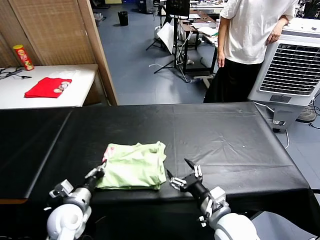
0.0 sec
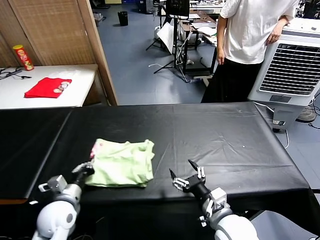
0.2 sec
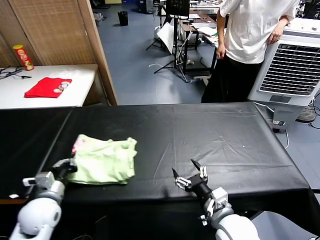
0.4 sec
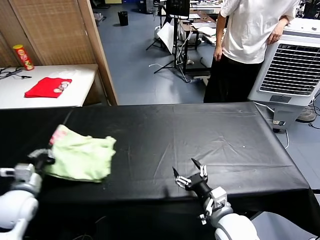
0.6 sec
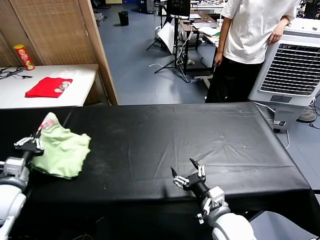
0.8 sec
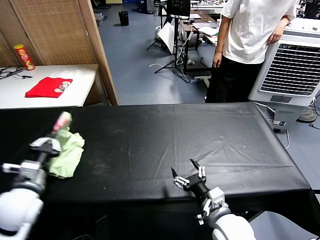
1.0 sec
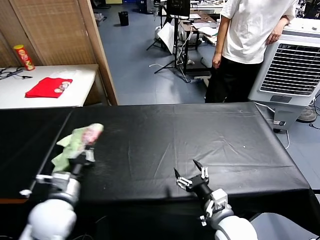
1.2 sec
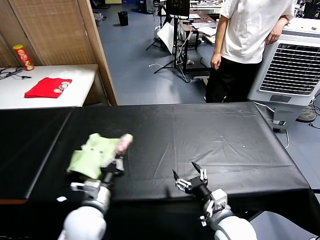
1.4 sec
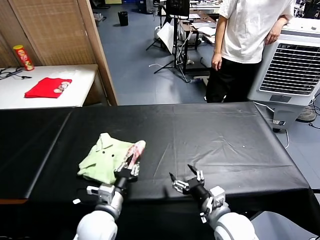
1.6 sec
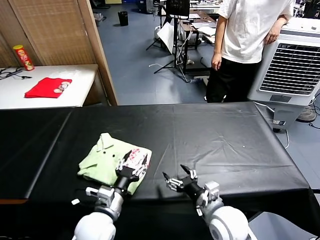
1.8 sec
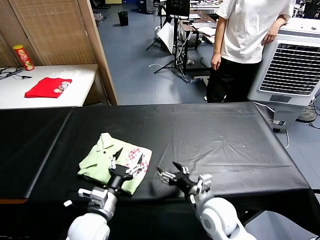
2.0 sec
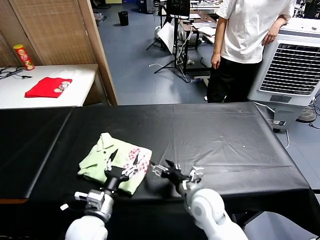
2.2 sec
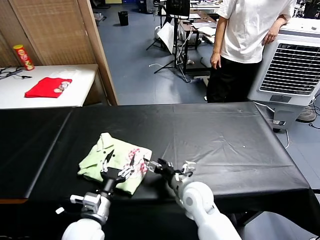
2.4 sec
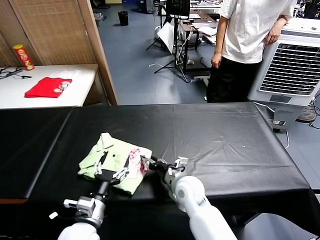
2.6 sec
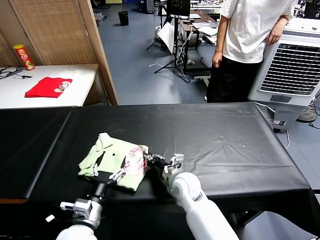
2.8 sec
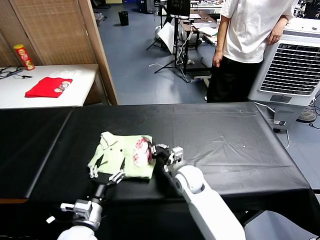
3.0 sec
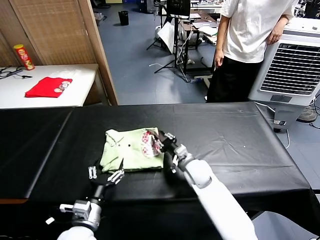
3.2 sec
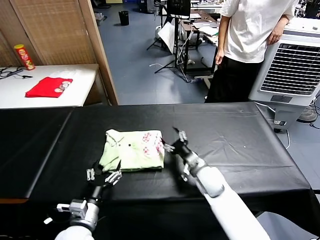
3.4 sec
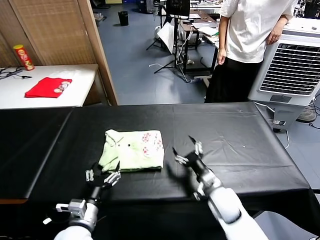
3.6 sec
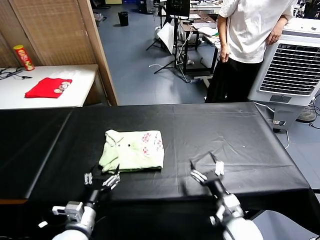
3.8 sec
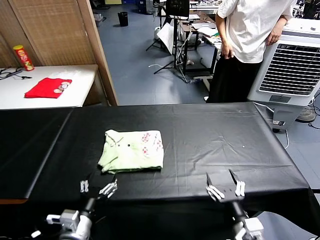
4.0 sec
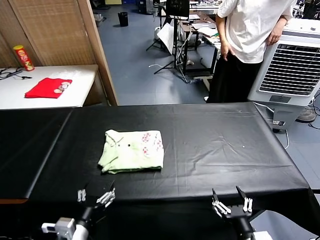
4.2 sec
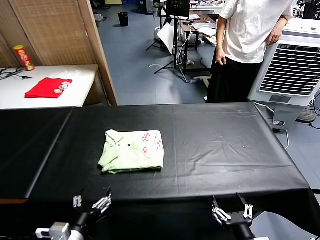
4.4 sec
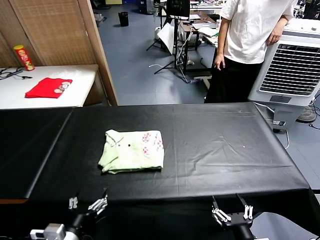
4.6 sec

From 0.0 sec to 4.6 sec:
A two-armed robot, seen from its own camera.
Task of the whole recording: fold and organize the clothes.
Step, from 1.8 sec to 3.2 sec: Drag the clothes to the center of the table.
From 0.0 sec to 1.6 sec: The left gripper moves to the right, about 10 cm.
From 1.6 sec to 3.0 sec: The right gripper shifts approximately 20 cm forward and to the left, and closes its fingers. The left gripper shifts by some 5 cm, and opens its fingers.
From 3.0 sec to 4.6 sec: The left gripper heads backward, covering about 10 cm. Meanwhile the right gripper shifts some 35 cm backward and to the right, and opens its fingers.

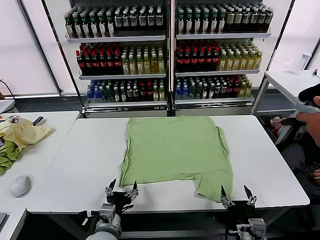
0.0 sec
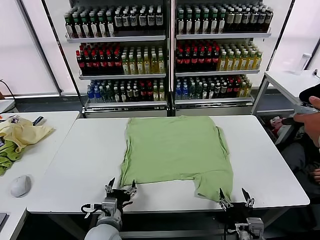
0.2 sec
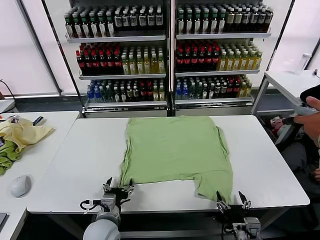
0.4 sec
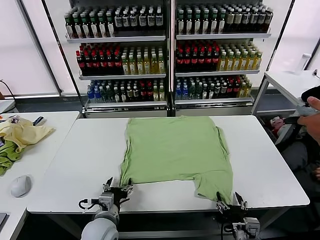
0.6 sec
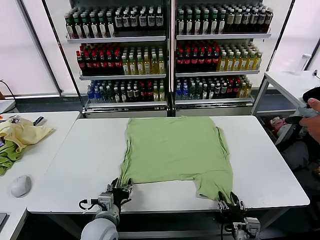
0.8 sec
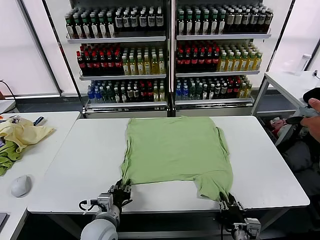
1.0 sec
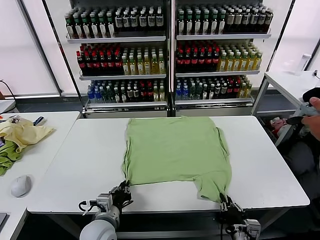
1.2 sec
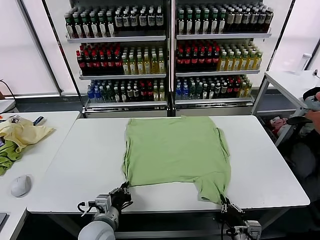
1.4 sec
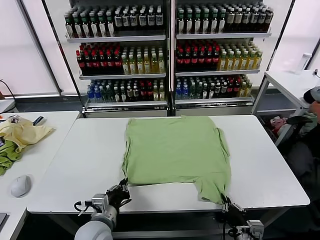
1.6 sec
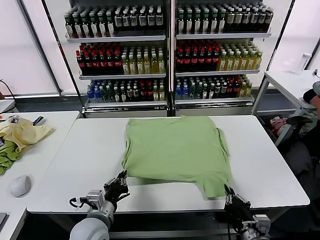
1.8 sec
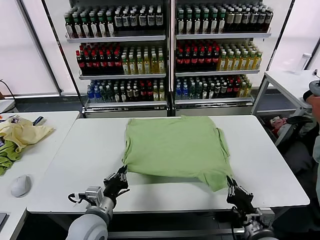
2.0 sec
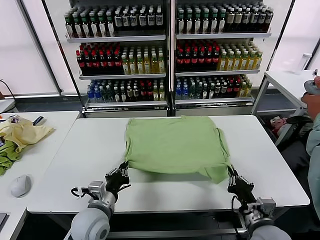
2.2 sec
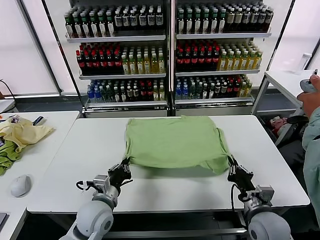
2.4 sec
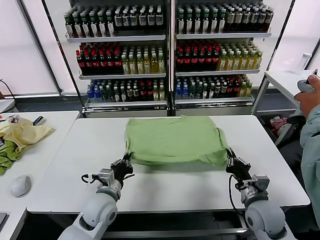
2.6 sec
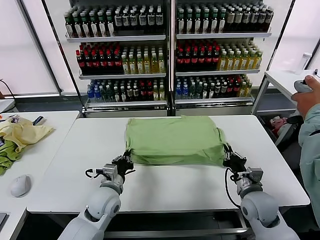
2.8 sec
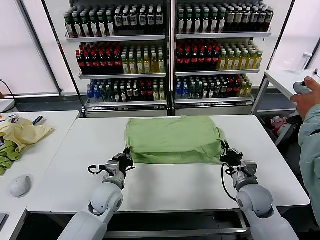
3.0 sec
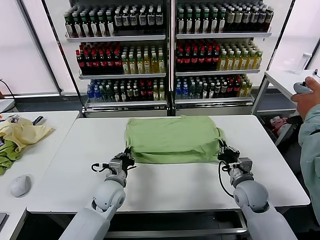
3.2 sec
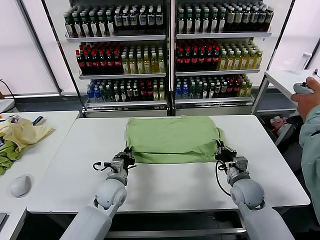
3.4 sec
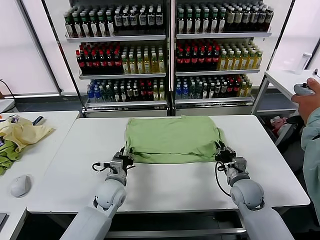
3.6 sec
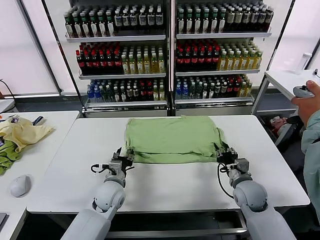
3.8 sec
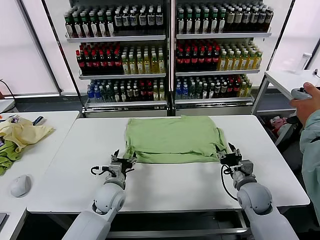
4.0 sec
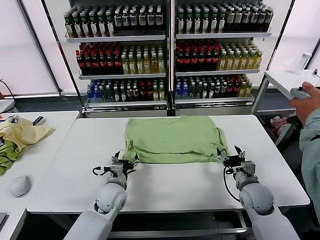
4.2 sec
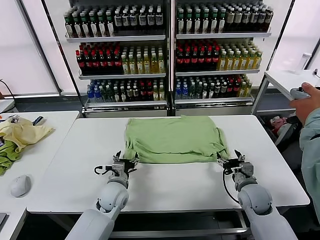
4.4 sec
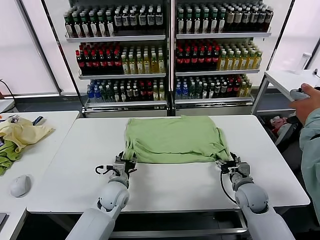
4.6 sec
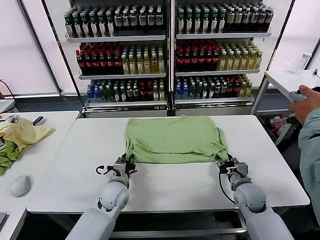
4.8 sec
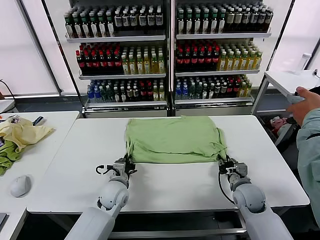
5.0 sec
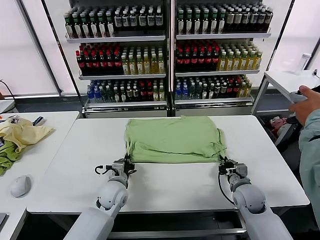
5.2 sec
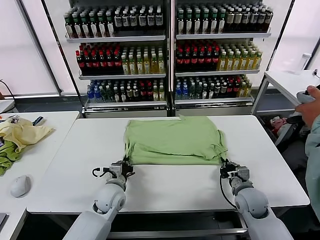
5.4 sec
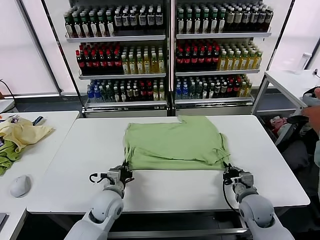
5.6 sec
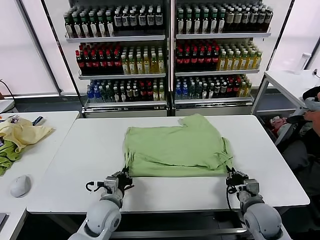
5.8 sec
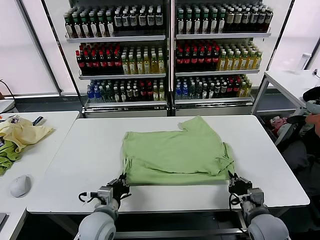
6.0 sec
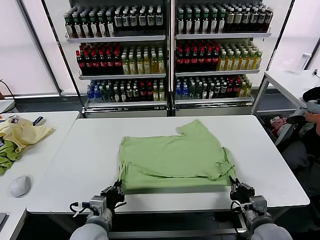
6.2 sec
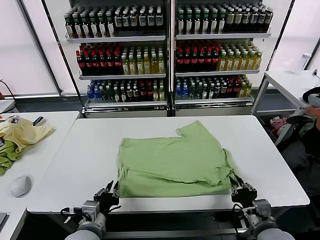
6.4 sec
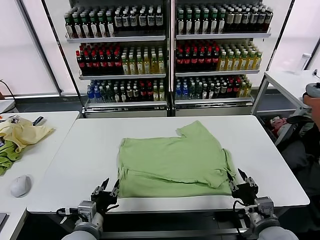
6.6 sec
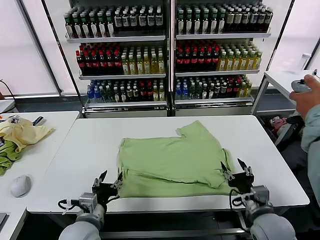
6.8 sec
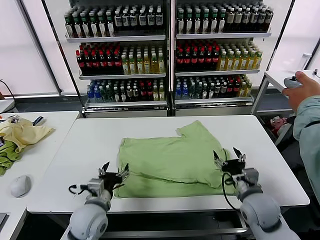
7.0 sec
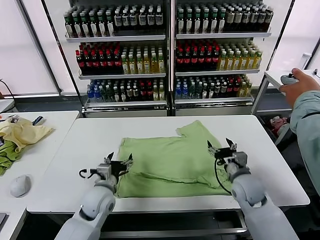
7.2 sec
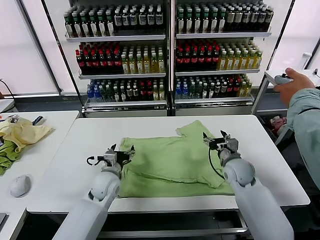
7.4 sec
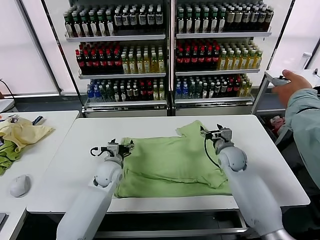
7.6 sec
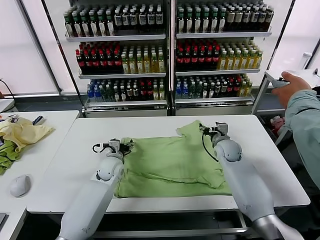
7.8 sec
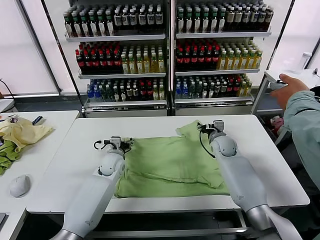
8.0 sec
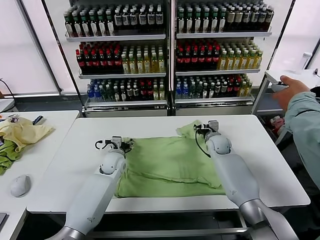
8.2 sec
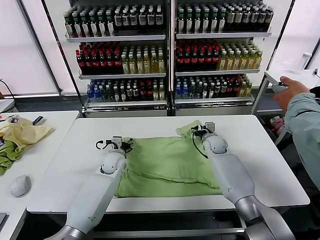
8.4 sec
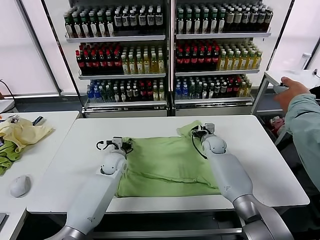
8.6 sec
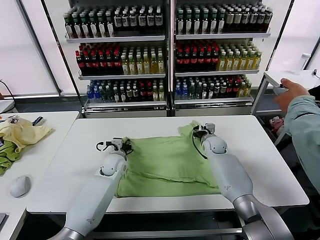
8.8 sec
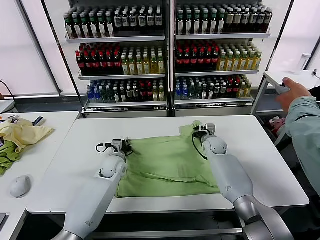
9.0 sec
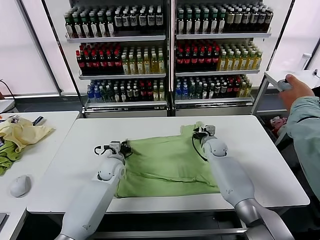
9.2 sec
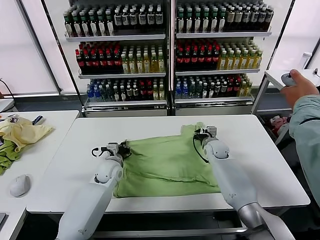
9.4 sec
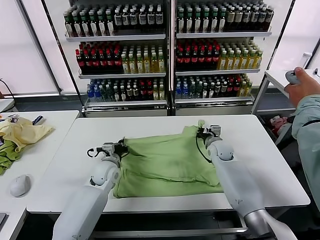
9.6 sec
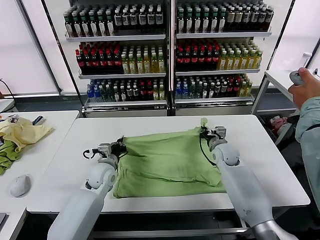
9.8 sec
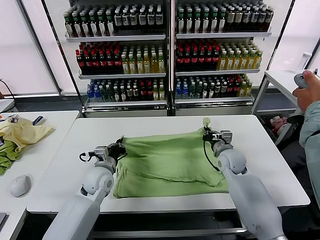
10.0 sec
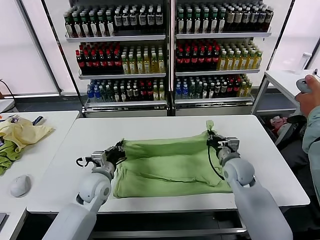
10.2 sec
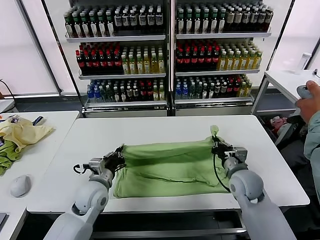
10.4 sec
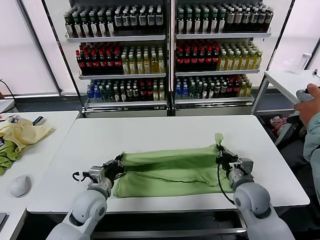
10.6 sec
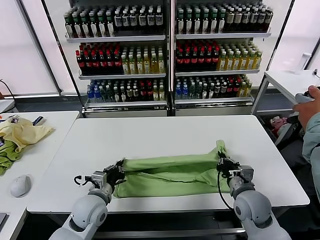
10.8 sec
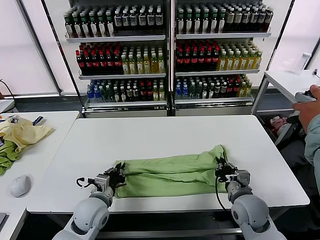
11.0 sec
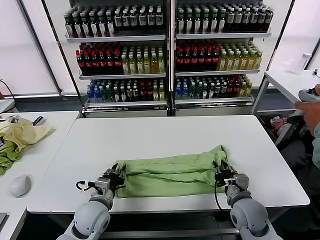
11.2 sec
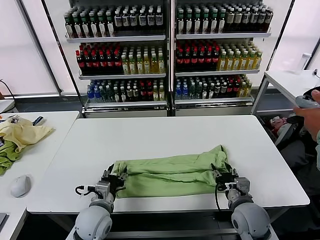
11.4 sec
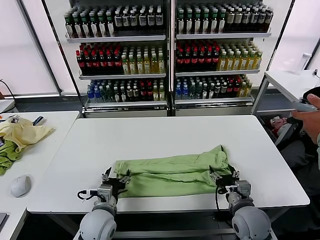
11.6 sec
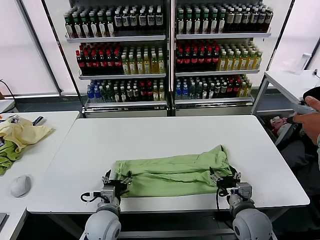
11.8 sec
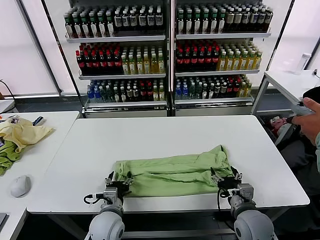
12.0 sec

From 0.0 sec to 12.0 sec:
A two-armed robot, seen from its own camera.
Task of the whole recording: fold and organize the clothes.
Step, from 0.0 sec to 1.4 sec: use both grippers simultaneously to clamp the lower edge of the clothing fabric.
Step, from 1.6 sec to 3.8 sec: use both grippers to drag the lower edge of the fabric forward and fold it over the upper edge.
Step, from 4.0 sec to 6.4 sec: Drag the clothes downward with both gripper.
Step, from 6.6 sec to 9.0 sec: use both grippers simultaneously to clamp the upper edge of the clothing fabric.
Step, from 9.4 sec to 11.4 sec: use both grippers to drag the upper edge of the fabric backward and fold it over the lower edge.
From 1.6 sec to 3.0 sec: The left gripper moves forward, some 10 cm, while the right gripper is displaced forward by about 20 cm.
From 3.0 sec to 4.4 sec: The left gripper opens its fingers; the right gripper opens up.
From 4.4 sec to 6.0 sec: Both grippers travel together backward, roughly 10 cm. The left gripper closes up. Meanwhile the right gripper closes up.
From 6.0 sec to 7.6 sec: The grippers both shift forward by some 25 cm. The left gripper opens up. The right gripper opens up.
From 7.6 sec to 9.0 sec: The left gripper closes up. Meanwhile the right gripper is displaced forward and downward by some 10 cm, and closes its fingers.
From 9.0 sec to 10.4 sec: The left gripper goes roughly 15 cm backward; the right gripper heads backward, covering roughly 20 cm.
From 10.4 sec to 12.0 sec: The left gripper heads backward, downward and to the right, covering about 10 cm, and opens; the right gripper goes approximately 10 cm backward, and opens.

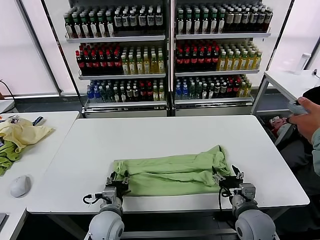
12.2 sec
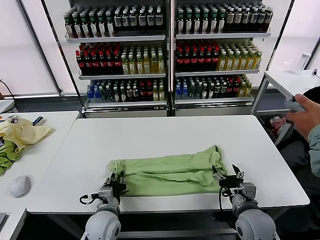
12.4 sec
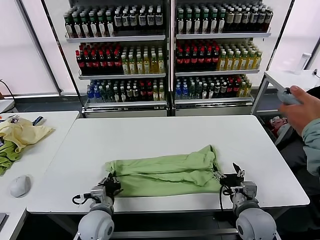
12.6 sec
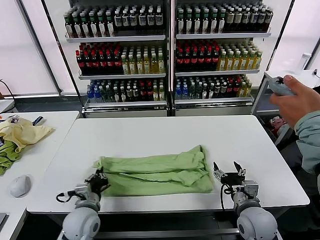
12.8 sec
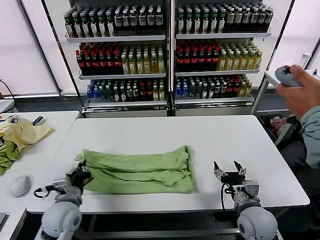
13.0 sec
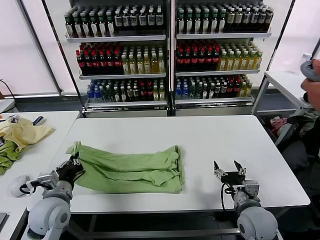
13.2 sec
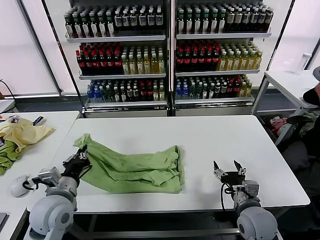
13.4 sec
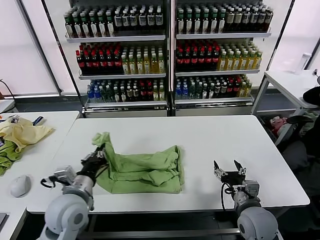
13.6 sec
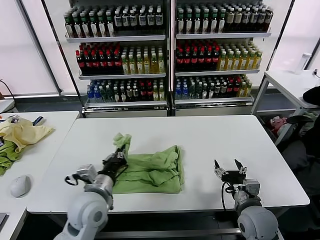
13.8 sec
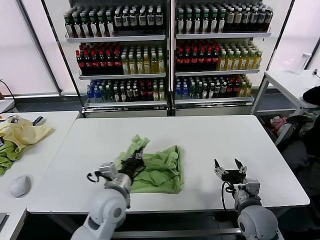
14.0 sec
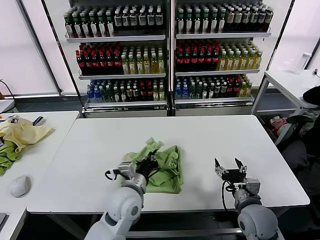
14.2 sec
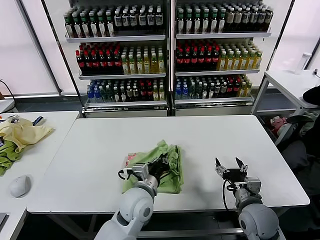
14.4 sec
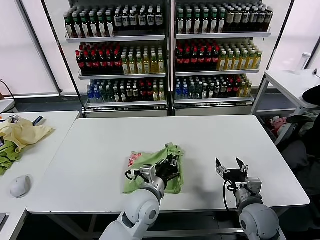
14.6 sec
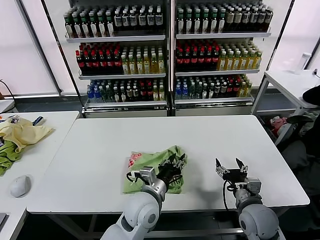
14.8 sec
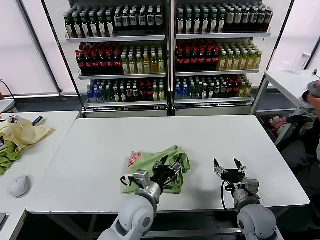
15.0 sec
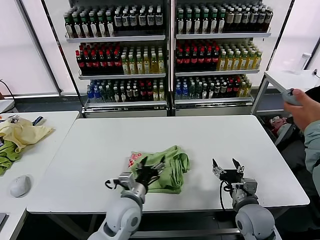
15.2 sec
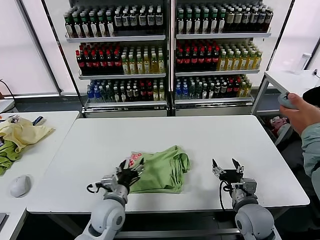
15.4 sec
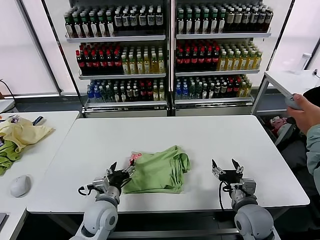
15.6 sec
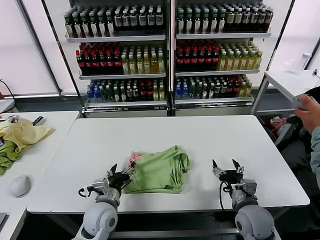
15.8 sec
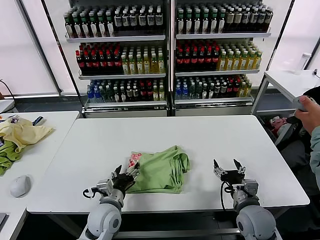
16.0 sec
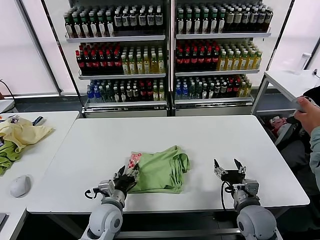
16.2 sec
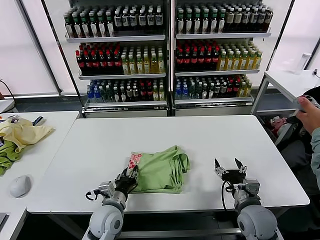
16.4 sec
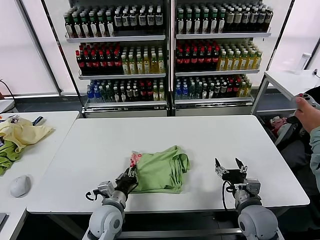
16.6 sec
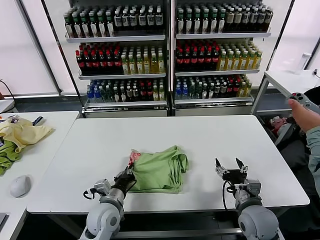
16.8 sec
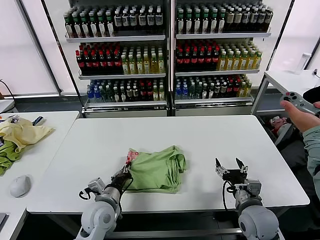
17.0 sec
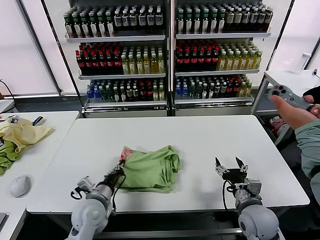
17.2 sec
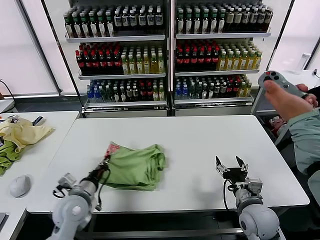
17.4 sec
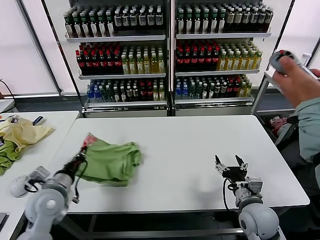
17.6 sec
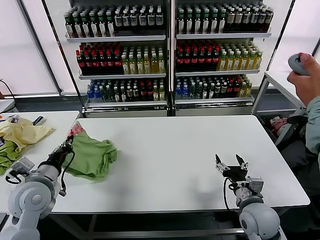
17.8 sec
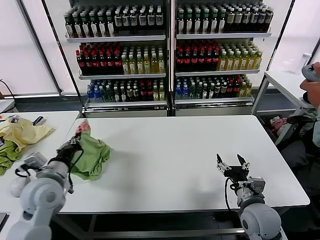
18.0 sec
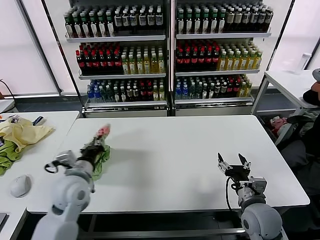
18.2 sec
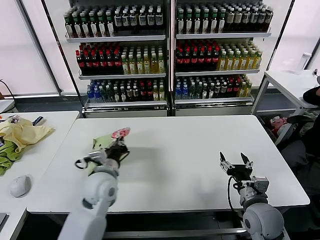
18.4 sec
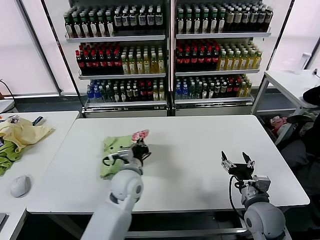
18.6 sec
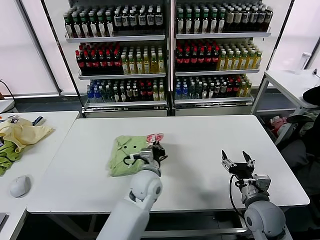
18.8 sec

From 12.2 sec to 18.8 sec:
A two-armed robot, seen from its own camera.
Task of the whole recording: fold and organize the clothes.
Step, from 12.8 sec to 14.8 sec: use the left gripper to drag the left edge of the fabric to the left and folds it over the right edge.
From 12.2 sec to 13.8 sec: The left gripper goes some 10 cm upward, travels to the left and back again, approximately 15 cm each way, and closes.
From 13.8 sec to 15.4 sec: The left gripper moves downward, roughly 10 cm, goes to the right and returns, some 15 cm each way, and opens up.
From 15.4 sec to 17.2 sec: The left gripper is displaced to the left by about 5 cm, and closes up.
From 17.2 sec to 18.8 sec: The left gripper shifts about 15 cm to the right and forward.
